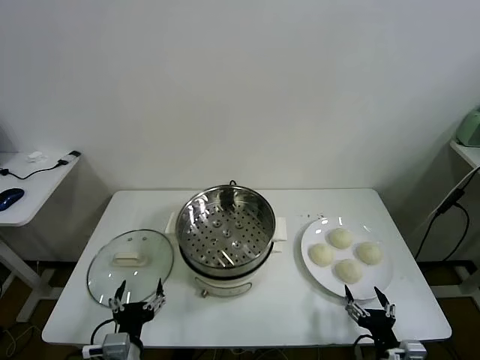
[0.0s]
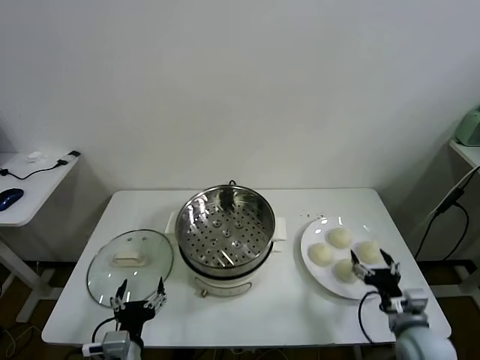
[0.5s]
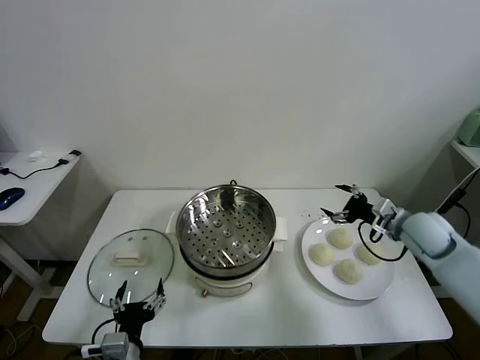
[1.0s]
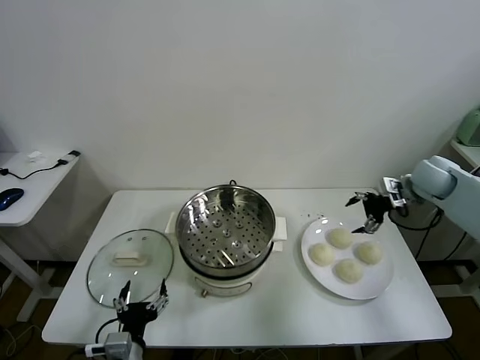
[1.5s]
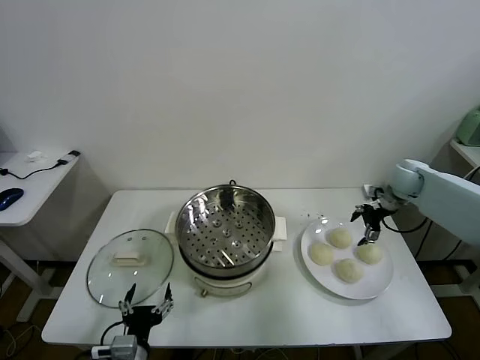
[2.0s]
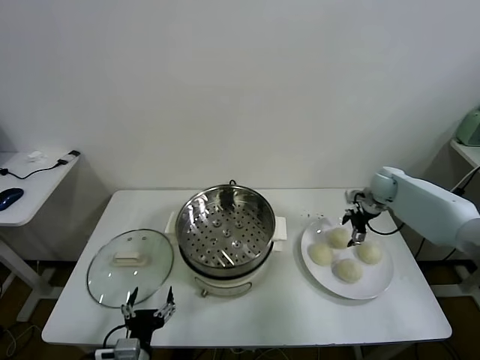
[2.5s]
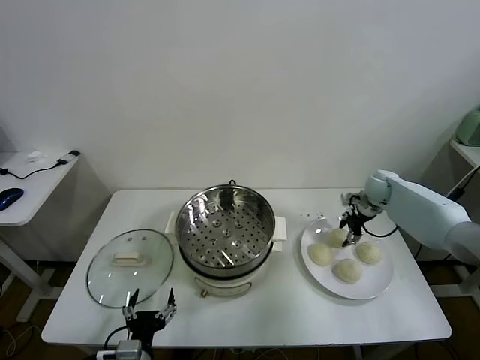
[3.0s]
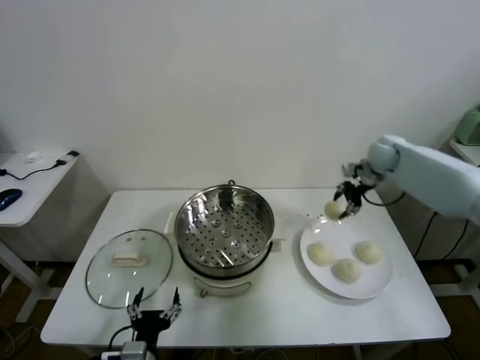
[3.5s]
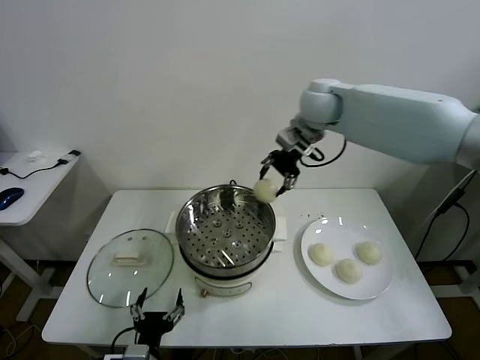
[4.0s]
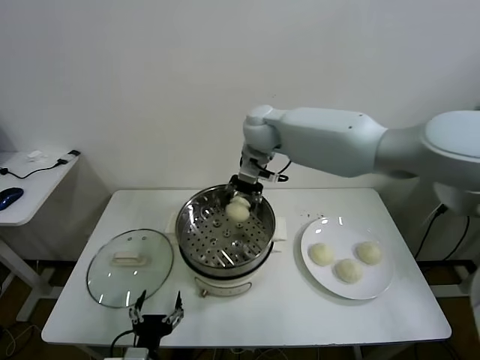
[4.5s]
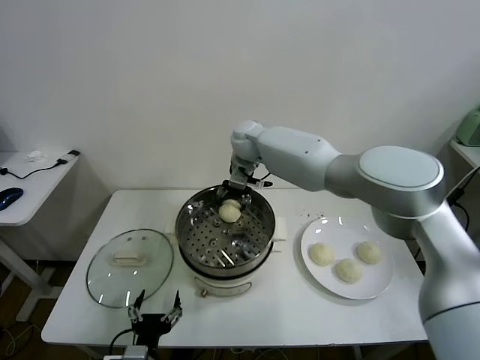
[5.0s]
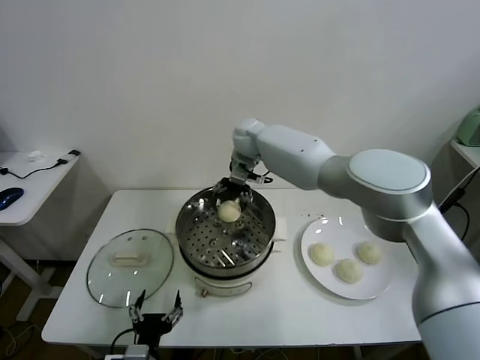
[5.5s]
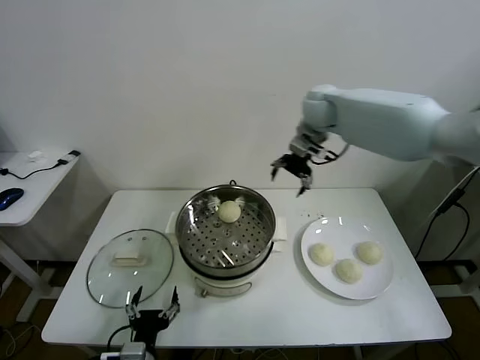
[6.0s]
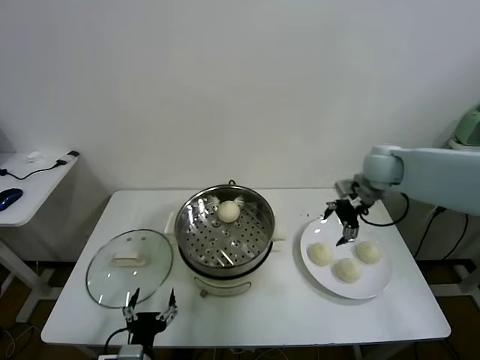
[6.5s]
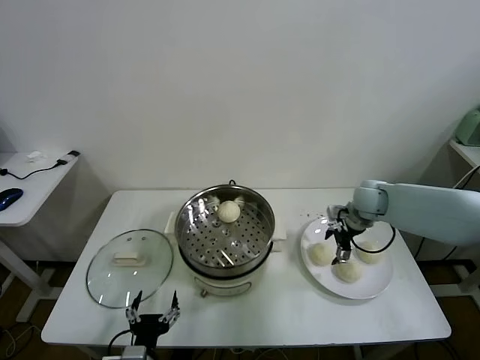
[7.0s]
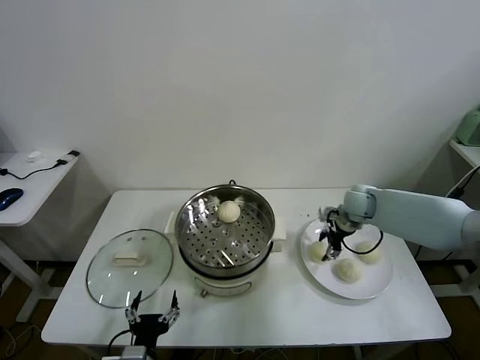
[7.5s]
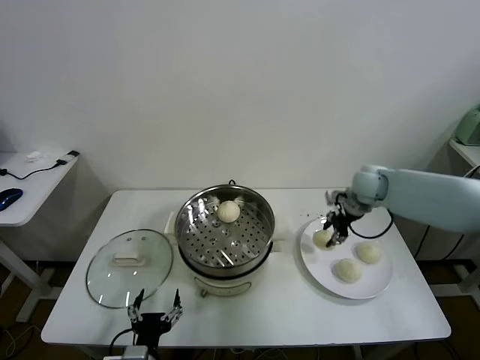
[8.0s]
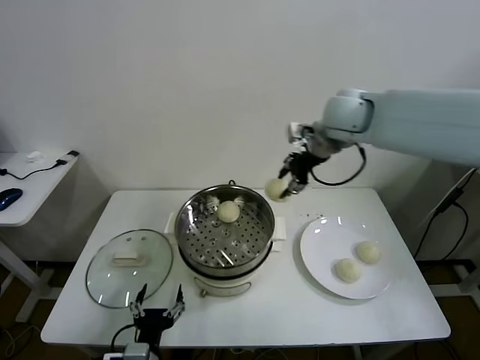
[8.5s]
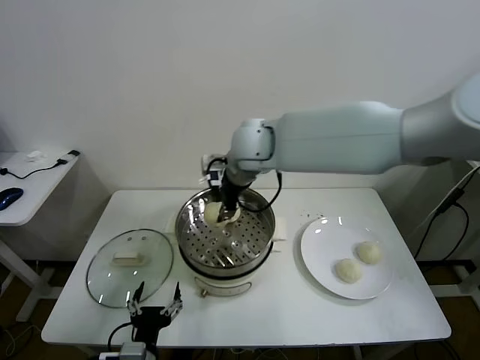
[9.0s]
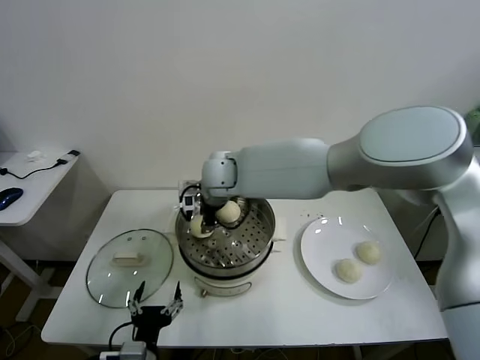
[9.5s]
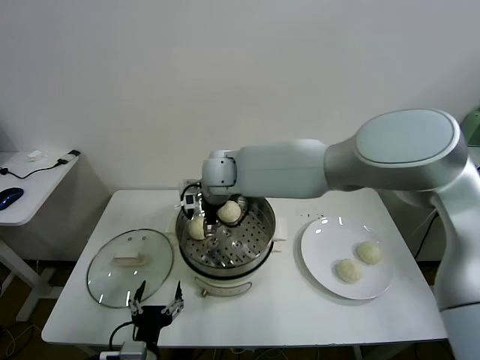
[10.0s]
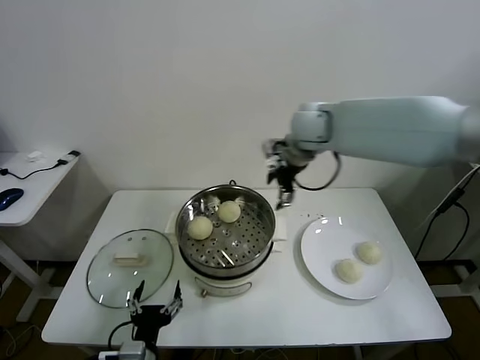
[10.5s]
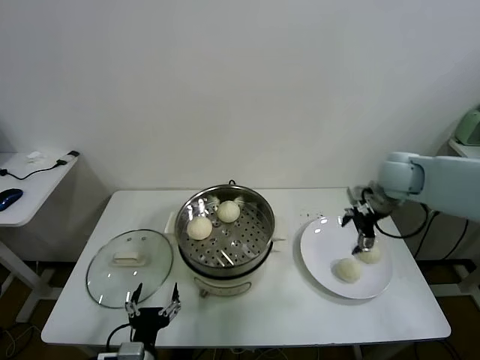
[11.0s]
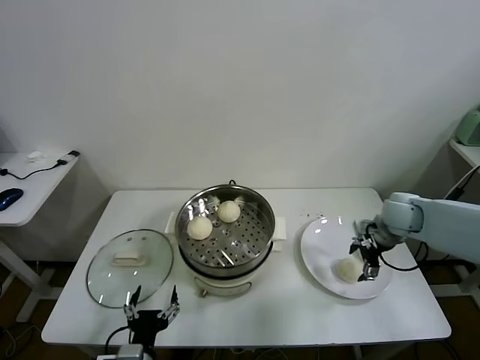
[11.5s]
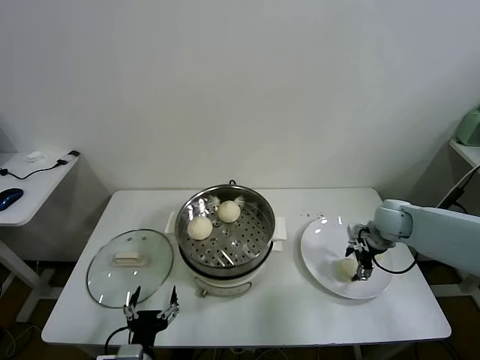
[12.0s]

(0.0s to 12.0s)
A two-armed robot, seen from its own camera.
Task of the whole recording: take steamed baozi put them in steamer.
Step, 0.0s - 3.0s: Grasp the baozi in the plate with right gripper.
Step, 3.5s - 5.5s: Place the baozi on the steamer with right gripper.
Step, 6.0s - 7.5s: Grasp the baozi in the plate with right gripper.
Step, 8.0s - 9.5s: Place the baozi on the steamer with right gripper.
2.0s - 4.0s: The right gripper travels to the left and upward by roughly 35 cm, and closes.
4.0s - 6.0s: The right gripper goes some 10 cm to the right, and opens up.
6.0s - 8.0s: The right gripper is displaced downward, to the right and backward by roughly 15 cm, and closes up.
8.0s - 10.0s: The right gripper travels to the left by some 35 cm, and opens its fingers.
10.0s - 12.0s: The right gripper shifts approximately 40 cm to the right.

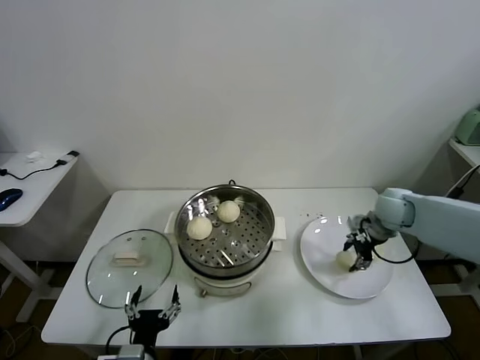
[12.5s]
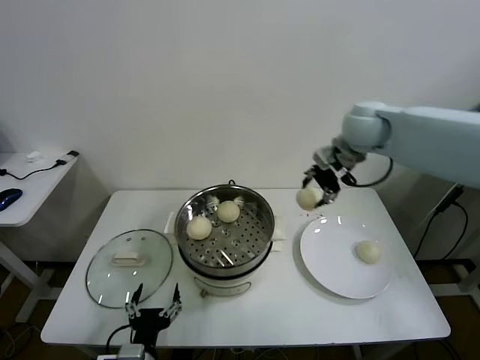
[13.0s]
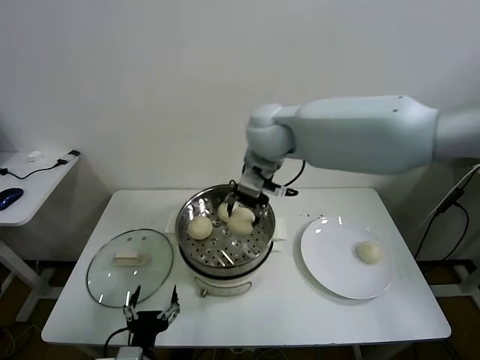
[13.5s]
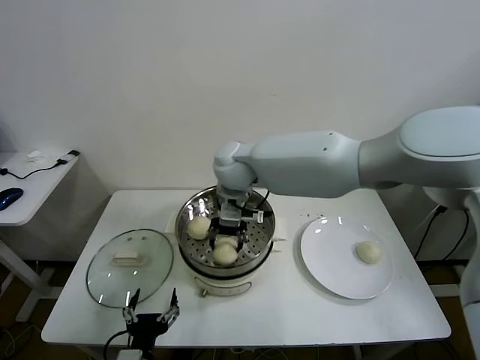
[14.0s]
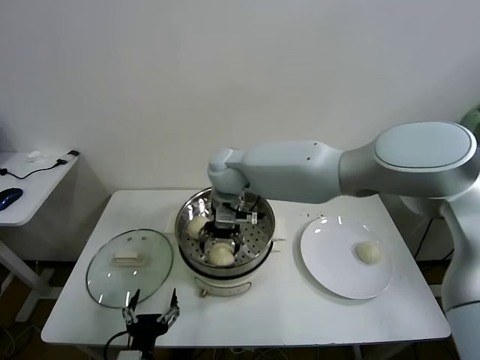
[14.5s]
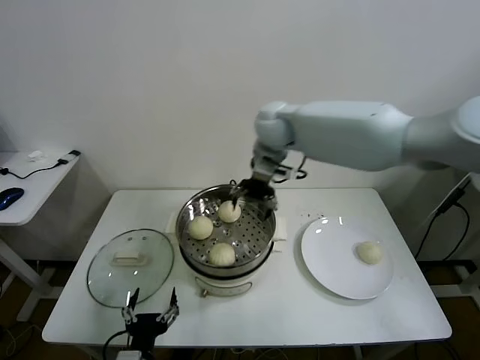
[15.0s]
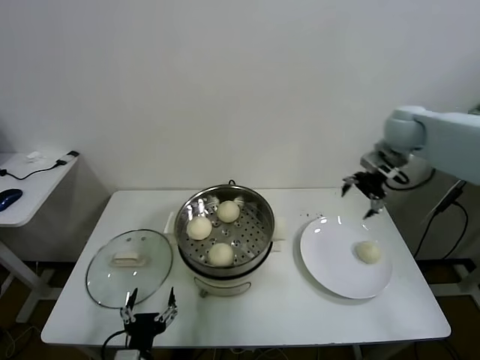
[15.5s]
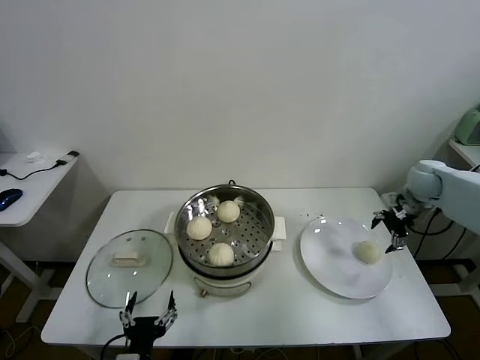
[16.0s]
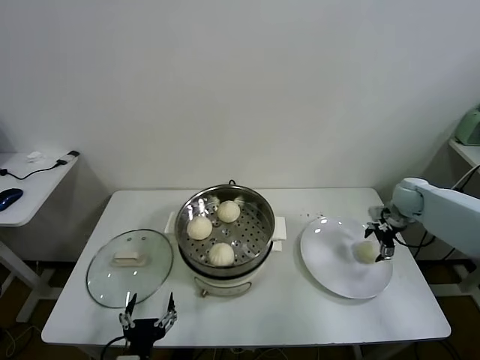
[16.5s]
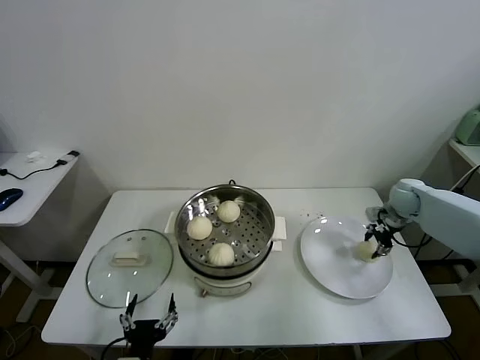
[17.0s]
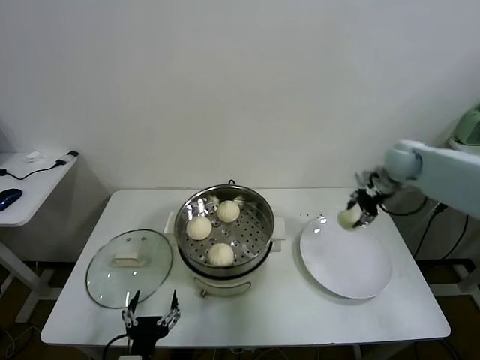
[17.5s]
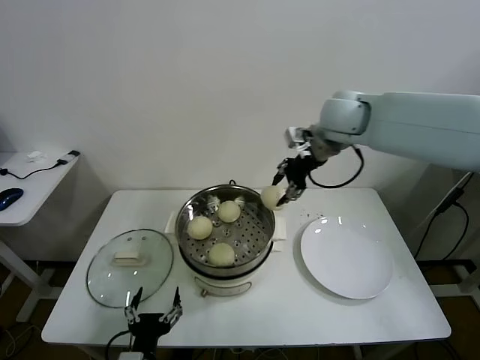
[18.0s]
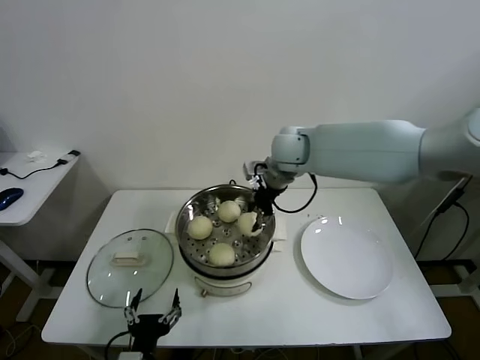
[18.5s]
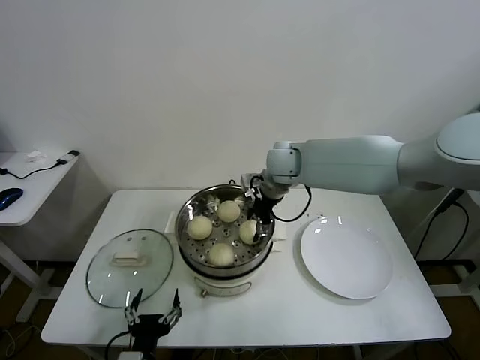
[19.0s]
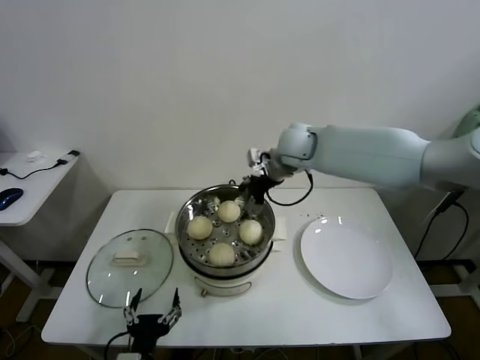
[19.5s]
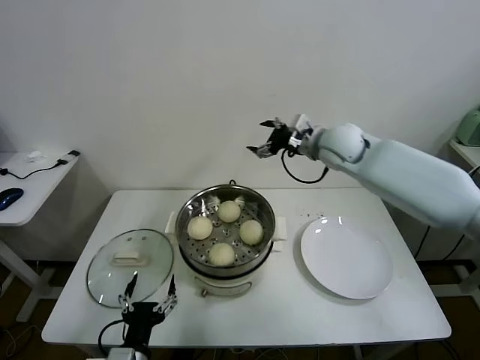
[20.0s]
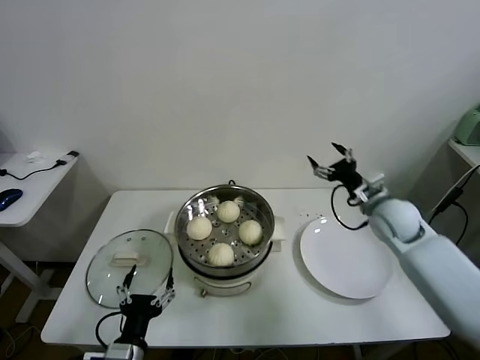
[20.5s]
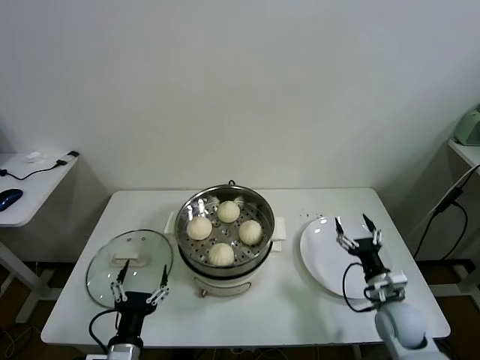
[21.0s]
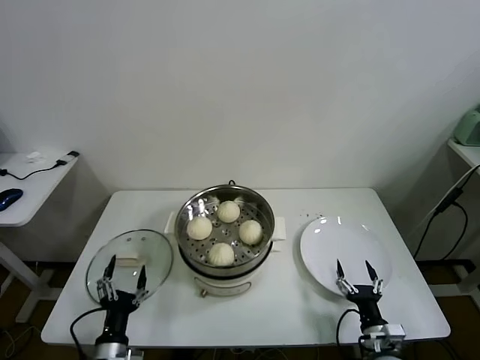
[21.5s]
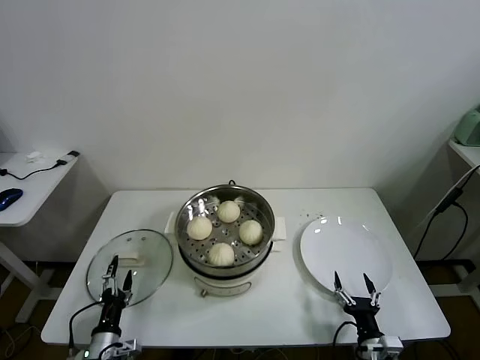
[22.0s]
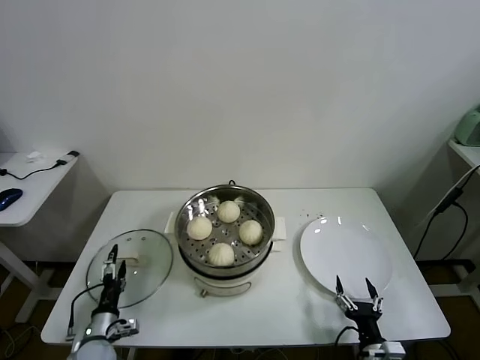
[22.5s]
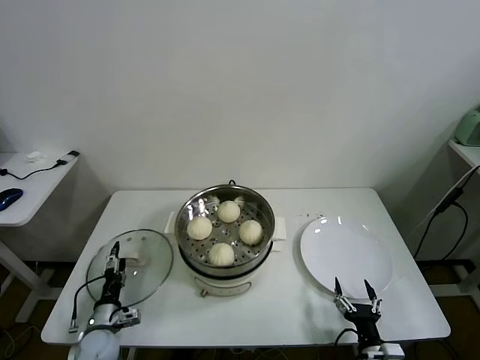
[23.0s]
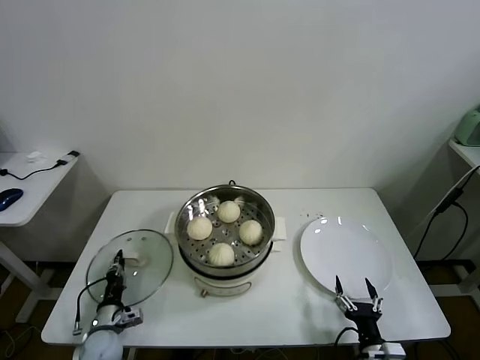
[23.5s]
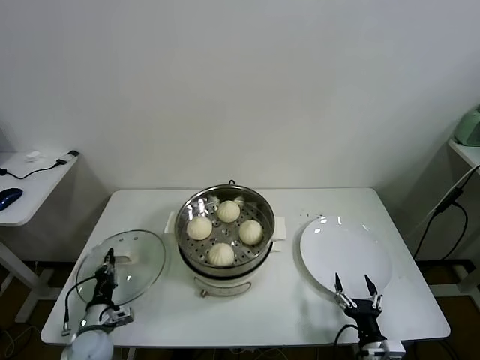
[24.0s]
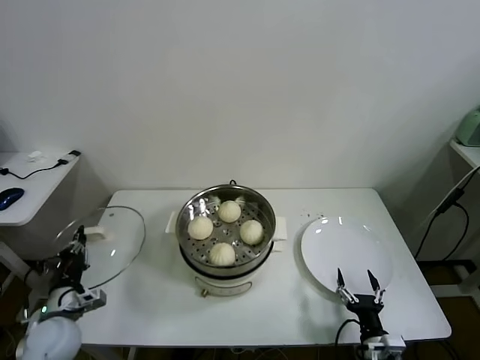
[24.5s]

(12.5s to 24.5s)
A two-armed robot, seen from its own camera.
Task of the whole recording: take steamed baozi put them in steamer.
Step, 12.5s - 14.5s: Place the baozi on the steamer with right gripper.
Step, 15.0s - 16.5s: Grasp the baozi in the plate with right gripper.
Step, 17.0s - 19.0s: Place the baozi on the steamer with right gripper.
Step, 19.5s - 23.5s: Grasp the pot lid with left gripper.
12.5s - 14.5s: The right gripper is displaced to the left by some 40 cm, and opens its fingers.
14.5s - 16.5s: The right gripper heads to the right, covering approximately 50 cm.
16.5s - 18.5s: The right gripper goes about 35 cm to the left and upward, and closes.
18.5s - 20.5s: The right gripper heads to the right, downward and backward, covering about 30 cm, and opens up.
20.5s - 22.5s: The right gripper moves backward and downward, approximately 35 cm; the left gripper heads downward, to the left and forward, covering about 20 cm.
22.5s - 24.5s: The left gripper goes roughly 10 cm upward, and closes.

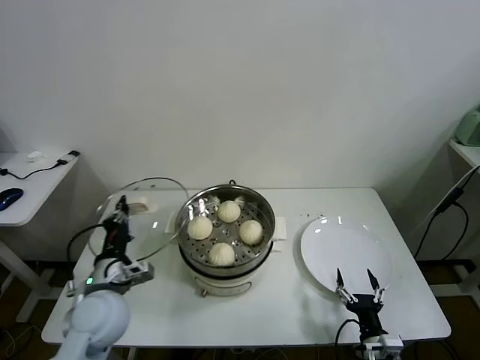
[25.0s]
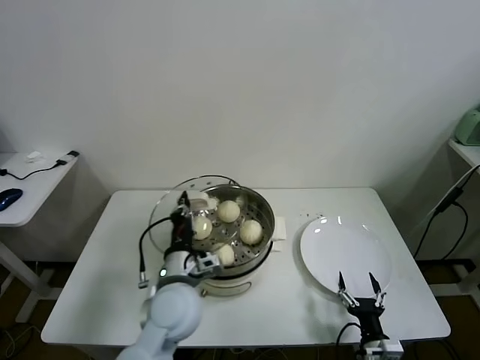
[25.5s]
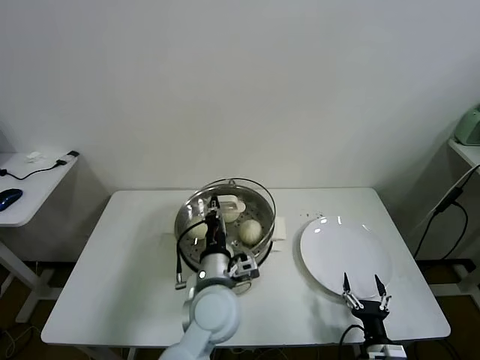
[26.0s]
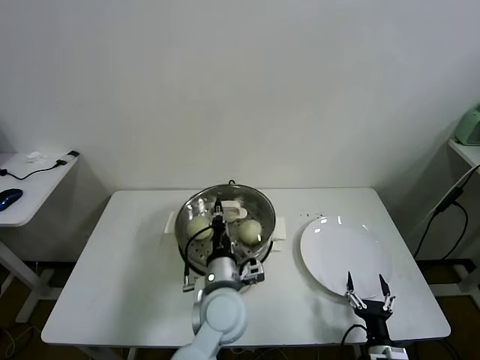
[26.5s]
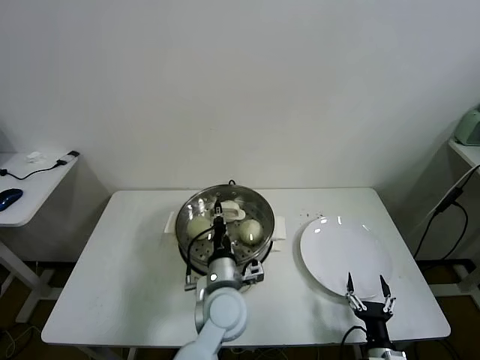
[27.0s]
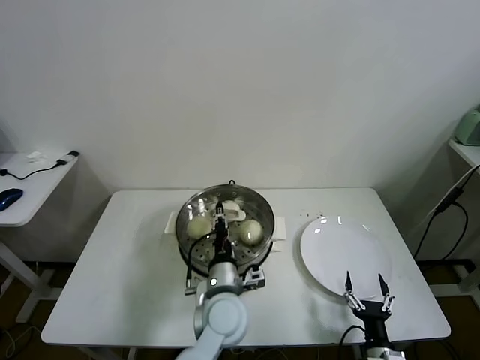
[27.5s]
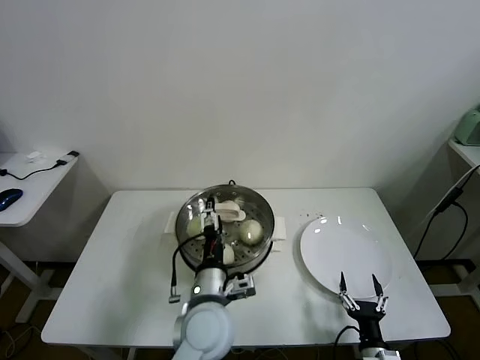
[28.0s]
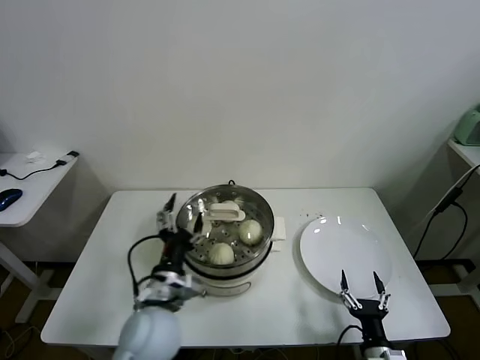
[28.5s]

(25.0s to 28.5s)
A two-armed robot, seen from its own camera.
Task of the whole recording: take steamed baozi put them in steamer.
Step, 25.0s - 27.5s: Place the pot lid on the steamer with left gripper.
25.0s - 27.0s: The left gripper moves to the right, approximately 25 cm.
27.0s - 28.5s: The left gripper goes roughly 10 cm to the left and backward, and opens its fingers.
